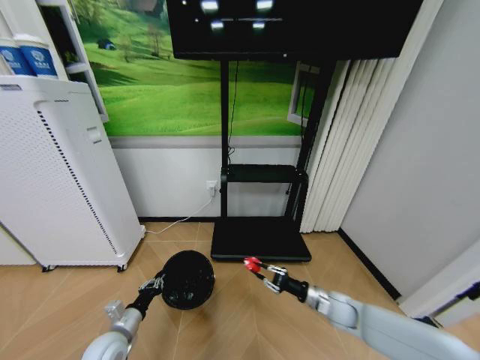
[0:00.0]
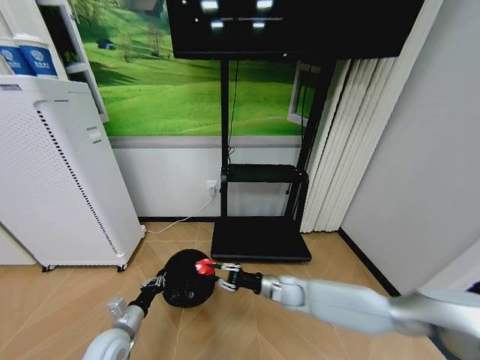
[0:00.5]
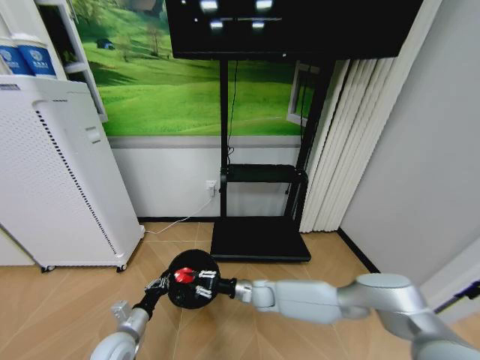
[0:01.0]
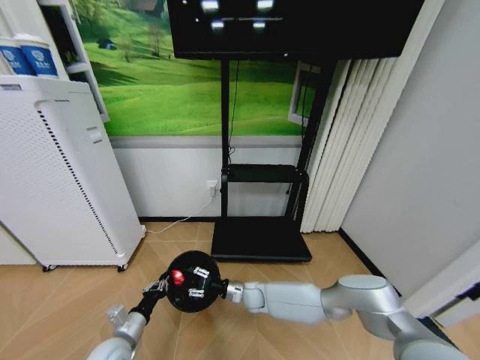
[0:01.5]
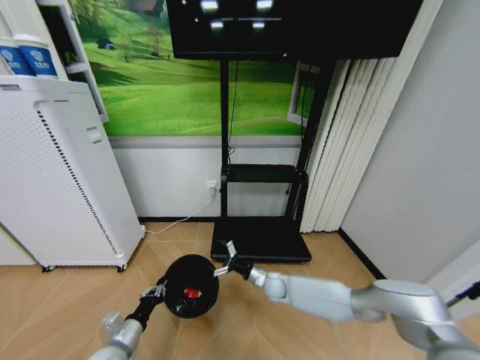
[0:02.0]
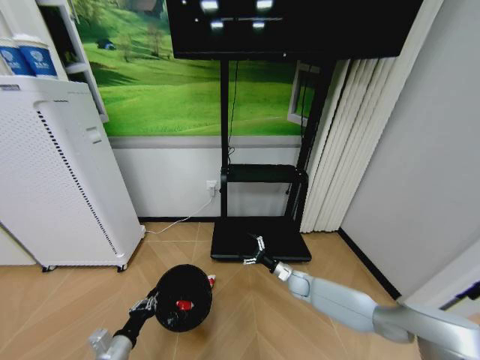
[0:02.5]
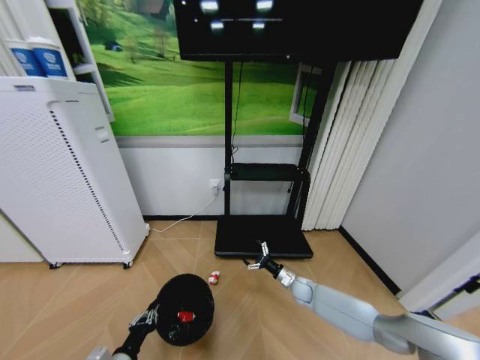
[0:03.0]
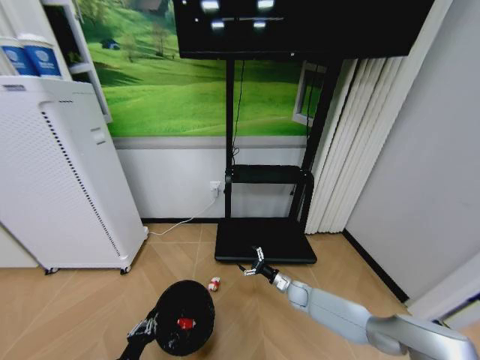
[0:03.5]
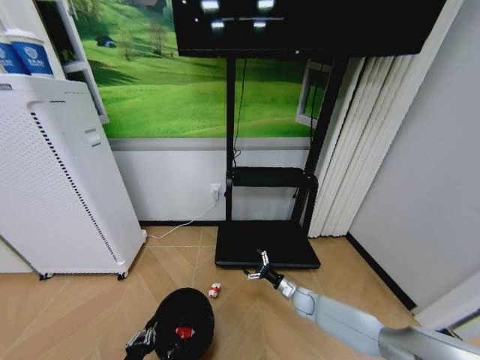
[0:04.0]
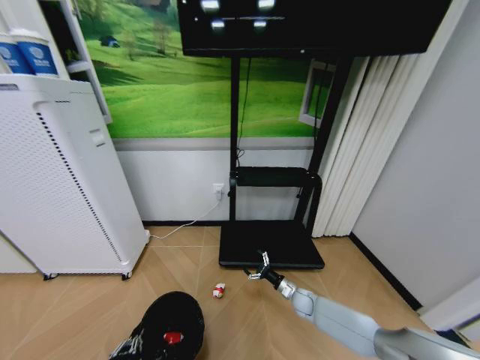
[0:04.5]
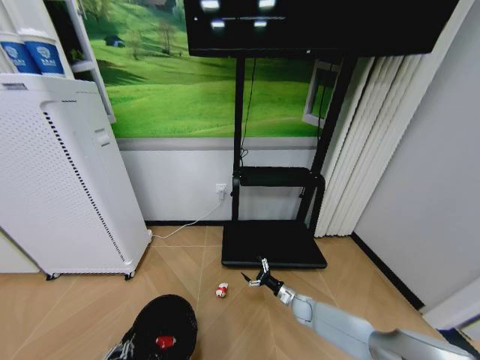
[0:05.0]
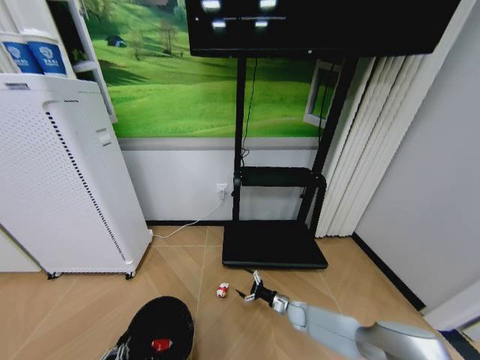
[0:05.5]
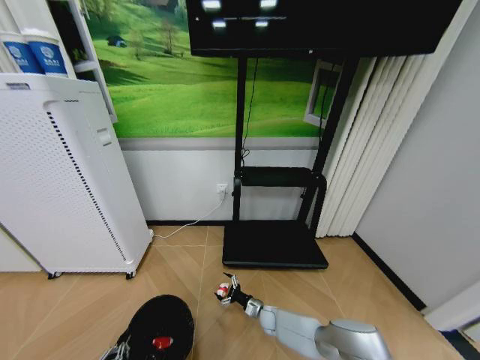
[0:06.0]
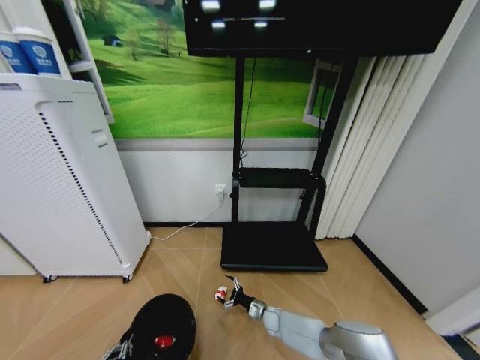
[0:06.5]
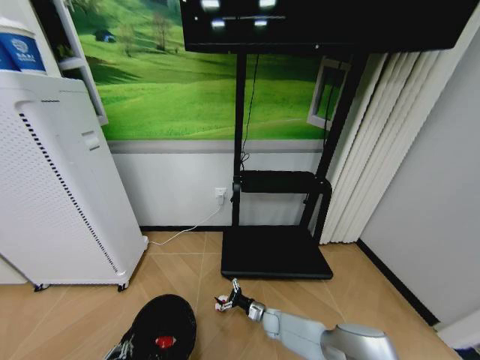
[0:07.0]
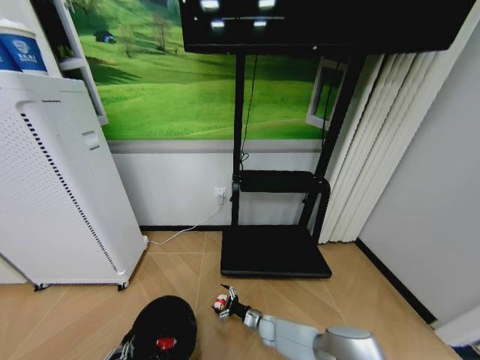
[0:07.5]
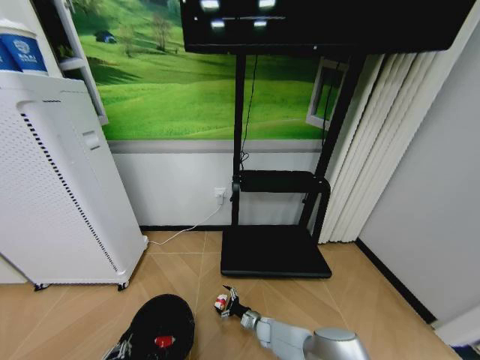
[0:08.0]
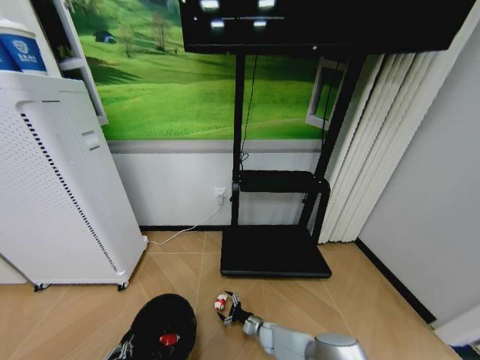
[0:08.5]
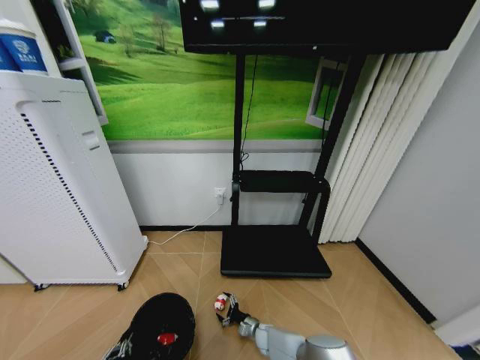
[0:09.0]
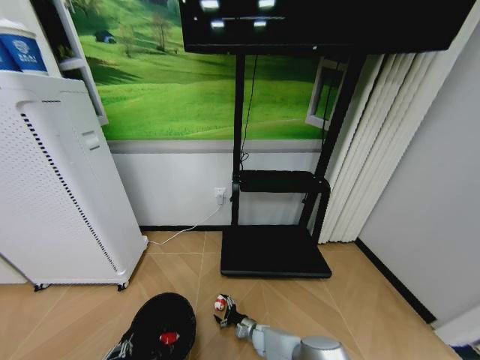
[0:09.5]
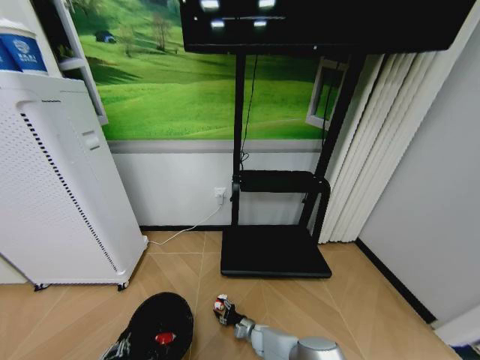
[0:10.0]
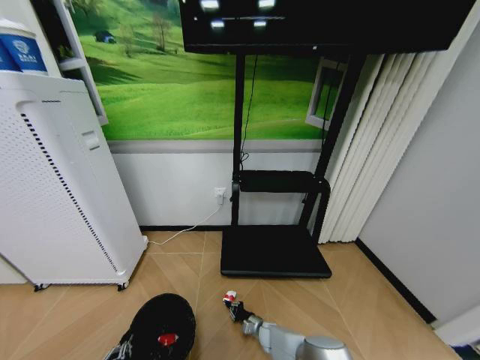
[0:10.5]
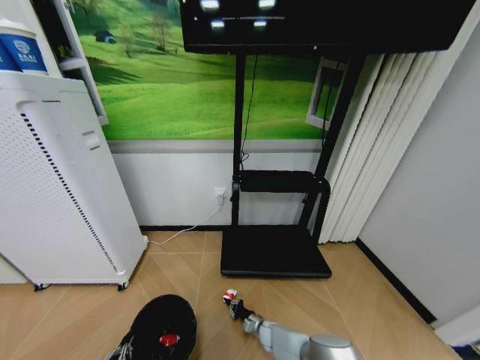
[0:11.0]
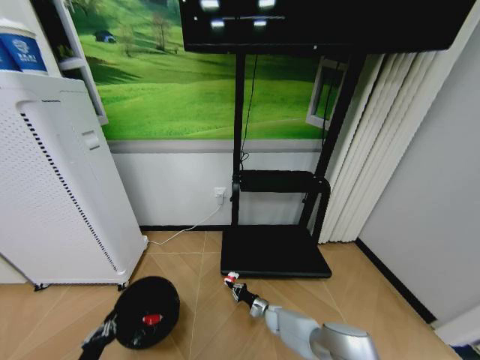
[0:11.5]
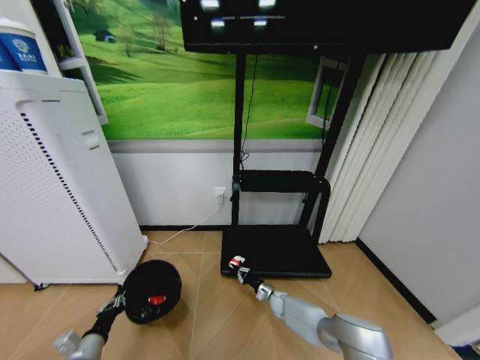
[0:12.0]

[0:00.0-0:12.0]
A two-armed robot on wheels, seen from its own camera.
Task of the whole recording: Pick up the trash bin and place the garbage on the floor into it.
0:00.0 to 0:02.0: The right gripper heads to the left and forward, covering some 20 cm, and opens its fingers.
0:02.0 to 0:04.0: The left gripper goes approximately 10 cm backward. Meanwhile the right gripper shifts roughly 15 cm to the right and downward.
0:04.0 to 0:06.0: The right gripper travels to the left and downward by approximately 15 cm. Meanwhile the left gripper moves about 5 cm.
0:06.0 to 0:08.0: The right gripper changes place by roughly 5 cm.
0:08.0 to 0:10.0: The right gripper closes.
0:10.0 to 0:12.0: The left gripper goes some 10 cm forward and to the left, while the right gripper is displaced forward, to the right and upward by some 15 cm, and closes up.

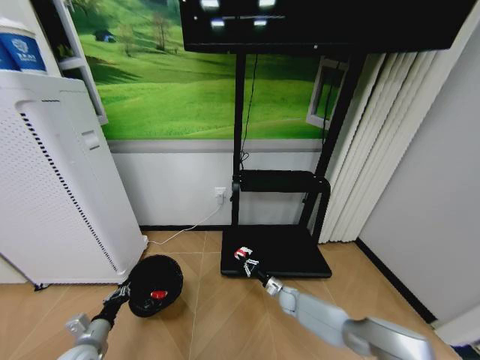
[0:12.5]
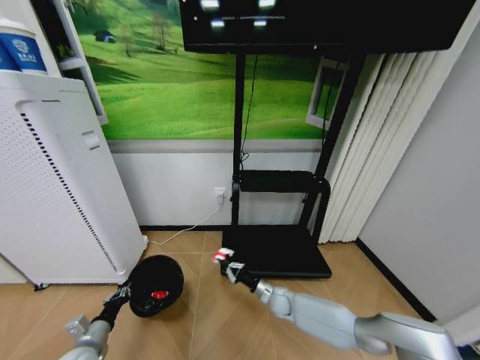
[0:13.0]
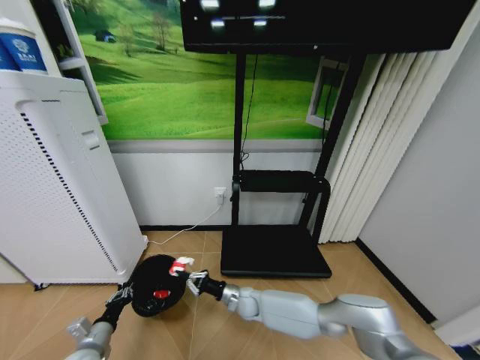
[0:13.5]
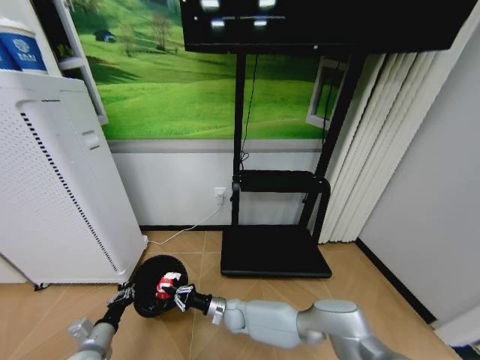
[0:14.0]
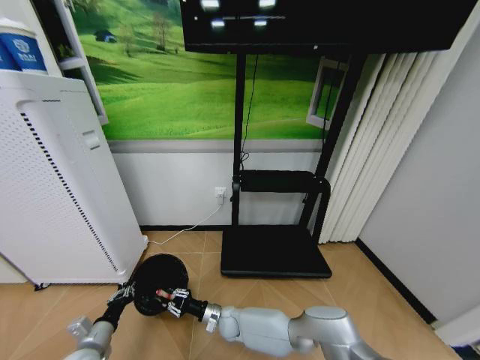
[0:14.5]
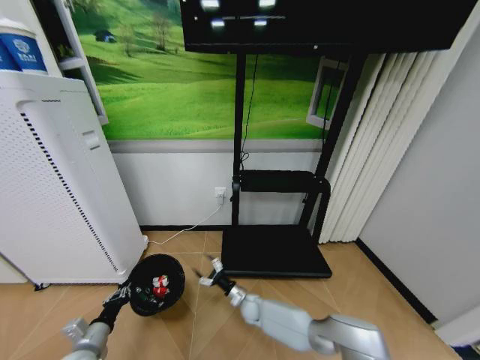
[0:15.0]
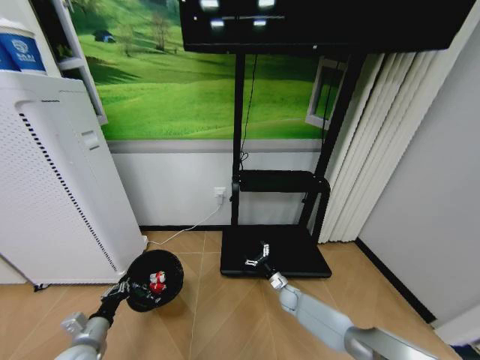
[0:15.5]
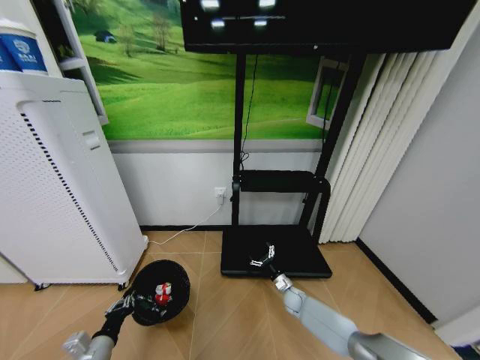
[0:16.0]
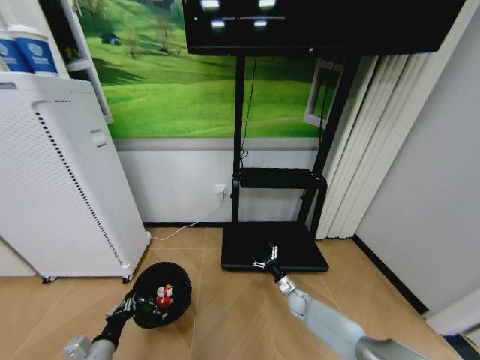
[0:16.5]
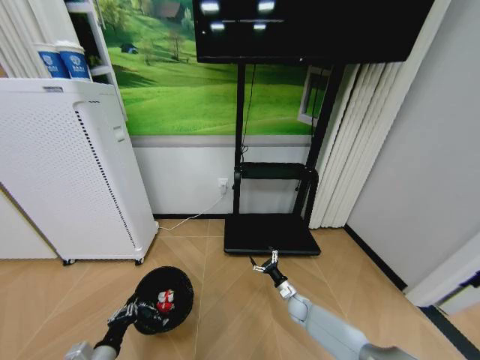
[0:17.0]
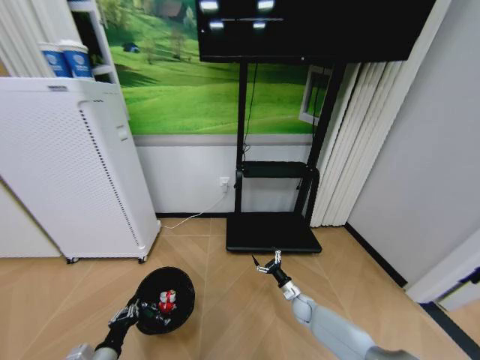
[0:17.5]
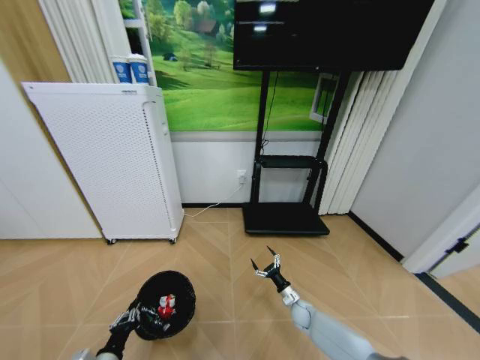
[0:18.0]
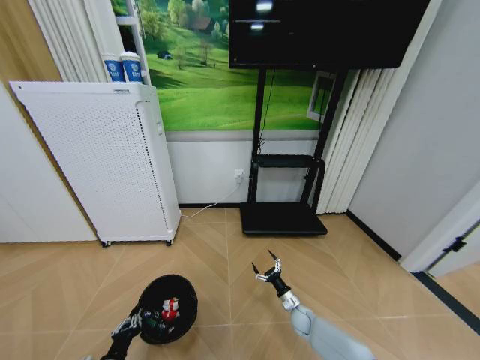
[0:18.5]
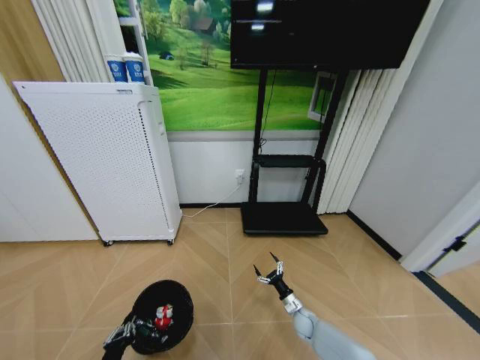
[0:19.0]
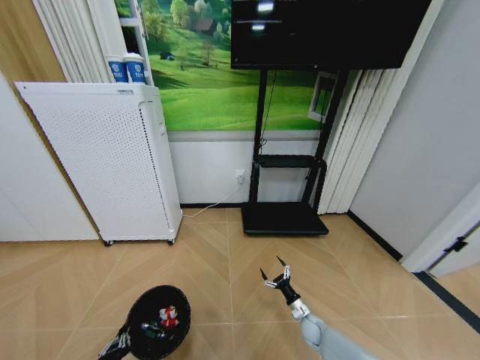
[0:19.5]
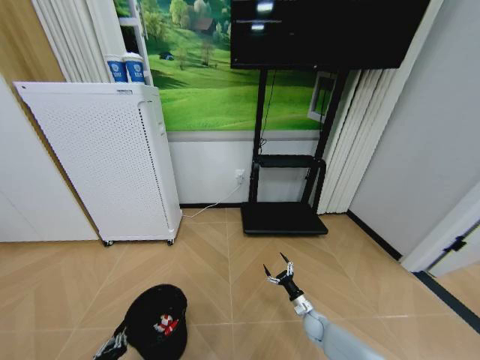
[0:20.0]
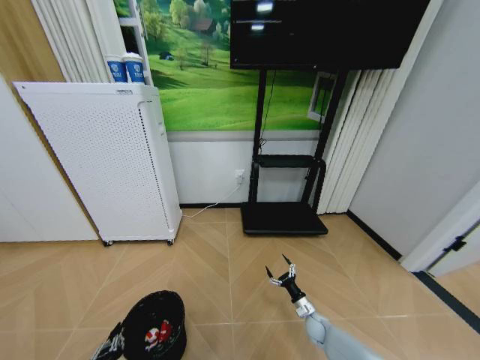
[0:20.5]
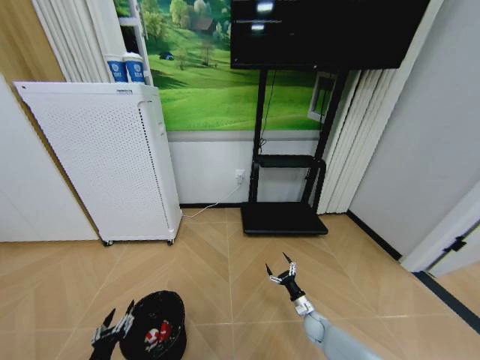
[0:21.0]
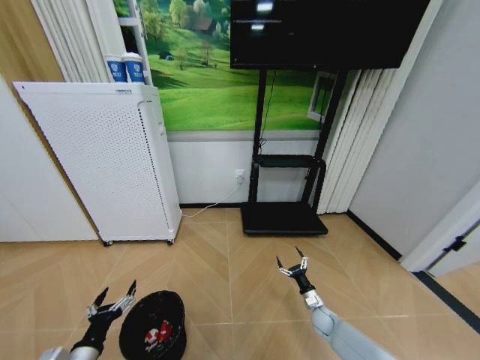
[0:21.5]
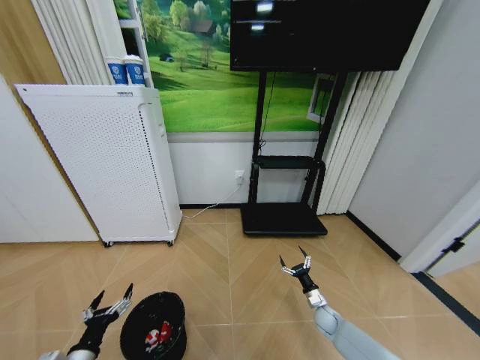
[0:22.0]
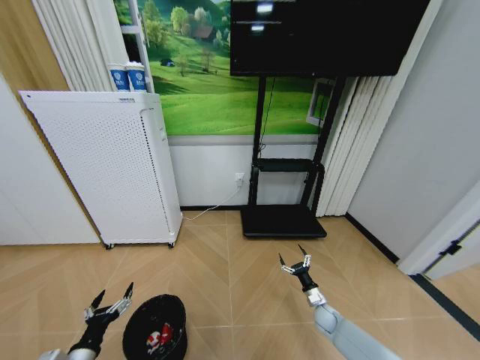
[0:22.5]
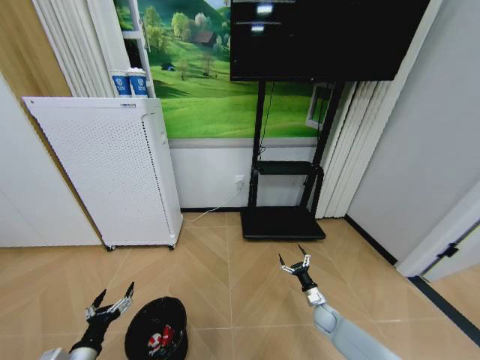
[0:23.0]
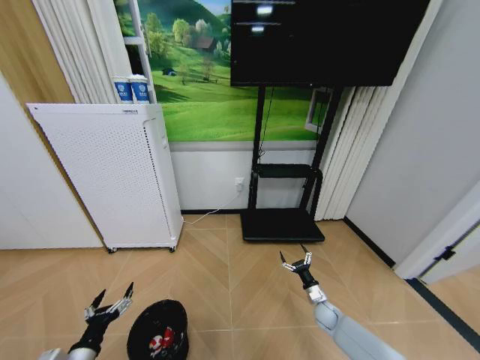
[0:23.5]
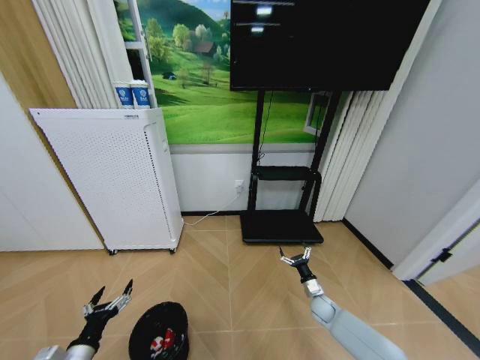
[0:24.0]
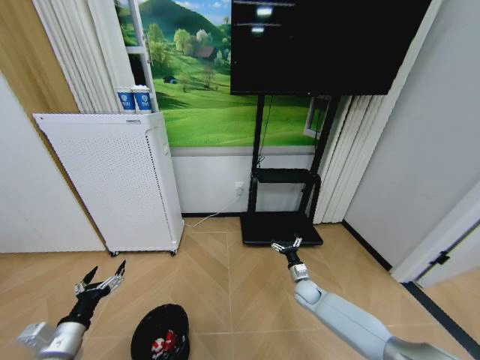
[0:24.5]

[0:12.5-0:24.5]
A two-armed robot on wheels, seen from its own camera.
Task of the whole recording: Pick up the trash bin and place the garbage on the floor into it.
0:12.5 to 0:14.5: The right gripper goes about 25 cm to the left.
0:14.5 to 0:16.5: The left gripper changes place by about 5 cm. The right gripper moves to the right, approximately 30 cm, and opens up.
0:16.5 to 0:18.5: The right gripper shifts about 5 cm backward, while the left gripper shifts by roughly 5 cm.
0:18.5 to 0:20.5: The right gripper heads to the right, covering approximately 5 cm. The left gripper heads backward, covering about 5 cm.
0:20.5 to 0:22.5: The right gripper changes place by approximately 5 cm; the left gripper goes about 5 cm forward, and opens up.
0:22.5 to 0:24.5: The right gripper goes about 10 cm to the left, upward and forward, while the left gripper heads upward, covering some 5 cm.

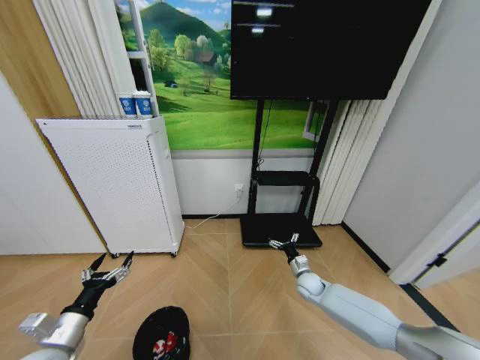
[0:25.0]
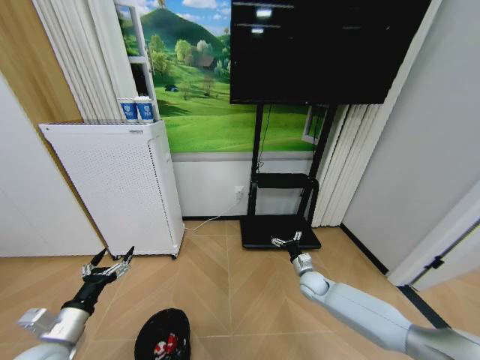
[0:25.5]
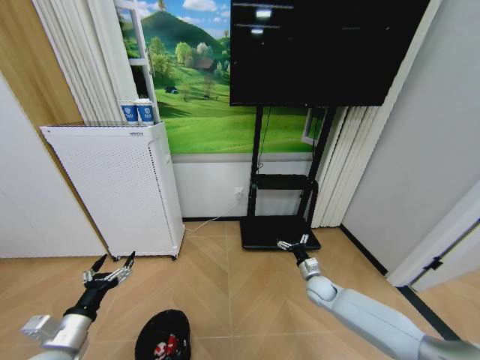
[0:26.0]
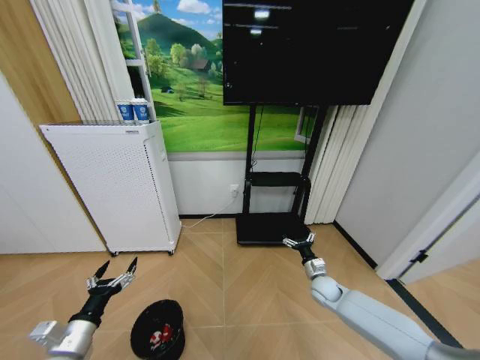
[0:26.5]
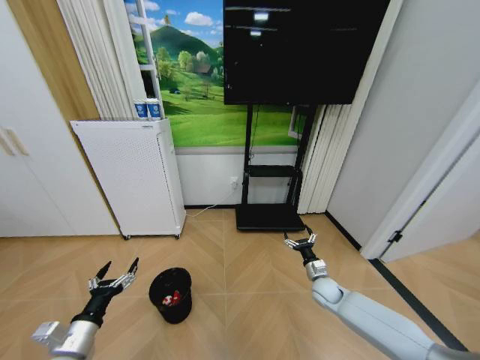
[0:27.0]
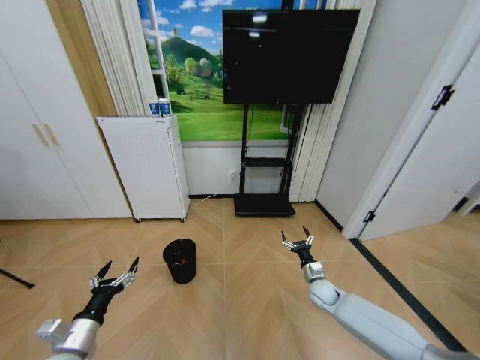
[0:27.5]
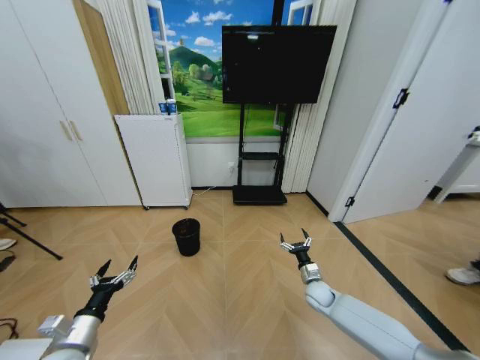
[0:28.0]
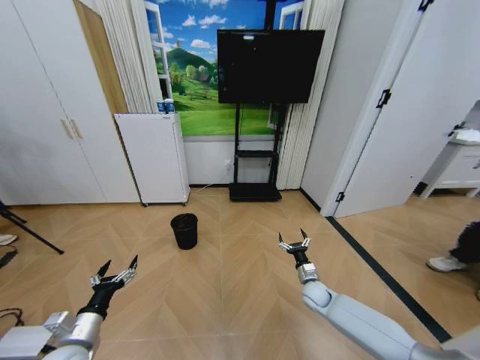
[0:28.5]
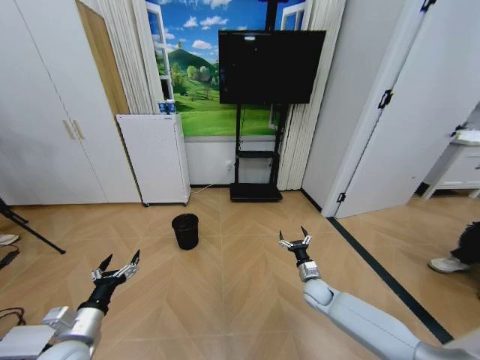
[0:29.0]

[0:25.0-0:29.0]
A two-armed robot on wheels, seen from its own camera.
Task of the whole recording: Pick up the trash bin and place the garbage on the floor into it.
0:25.0 to 0:27.0: The right gripper ends up roughly 5 cm from where it was.
